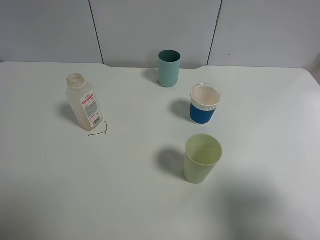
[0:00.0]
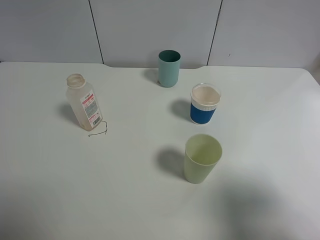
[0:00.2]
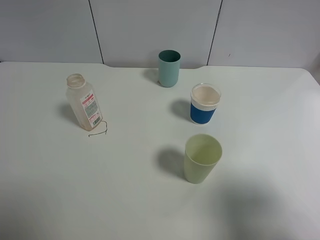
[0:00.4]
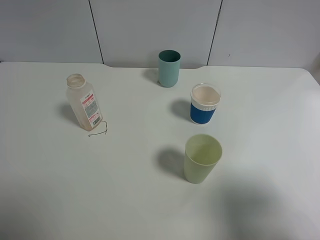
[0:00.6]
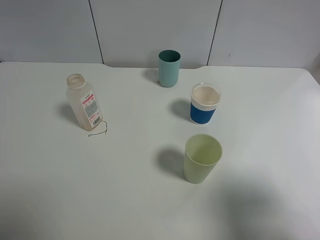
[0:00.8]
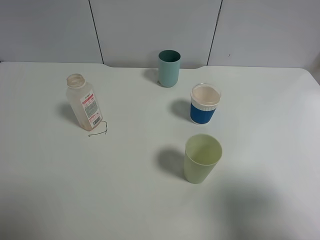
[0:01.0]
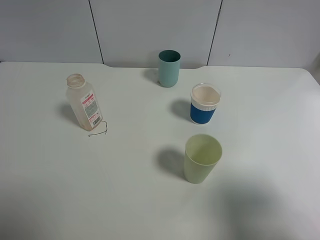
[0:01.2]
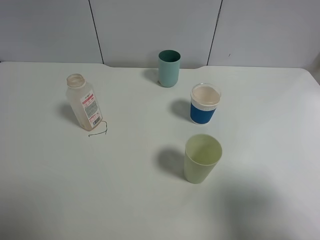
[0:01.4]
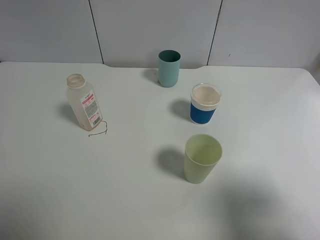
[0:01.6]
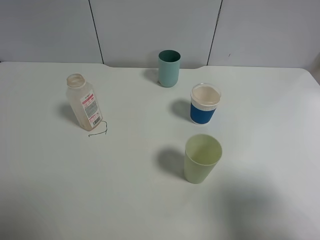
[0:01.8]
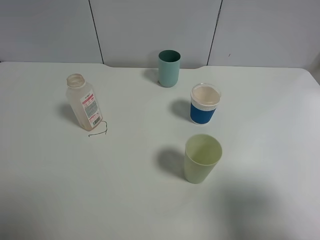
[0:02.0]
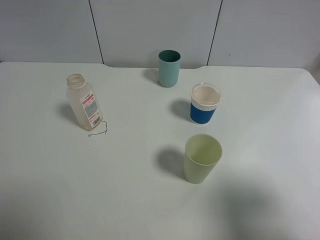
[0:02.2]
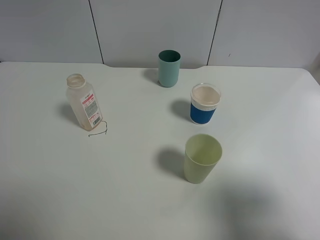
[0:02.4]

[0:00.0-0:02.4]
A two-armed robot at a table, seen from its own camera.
Task of the whole recording: use a gripper to hold the bottle of the drink and pour it into a random cup.
0:00.0 to 0:02.4: Both grippers stay about where they are.
